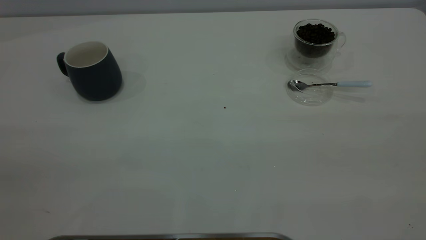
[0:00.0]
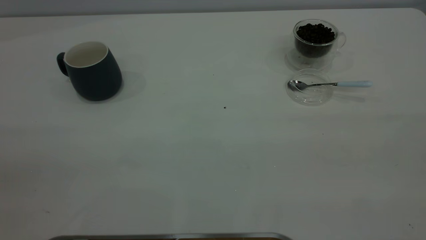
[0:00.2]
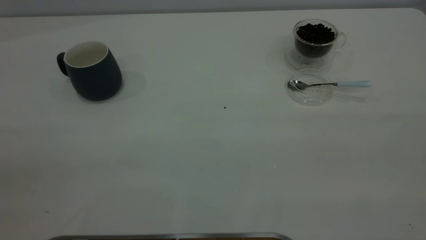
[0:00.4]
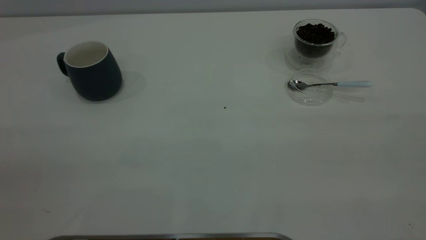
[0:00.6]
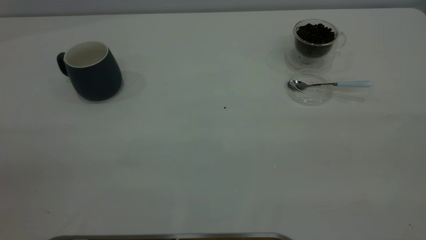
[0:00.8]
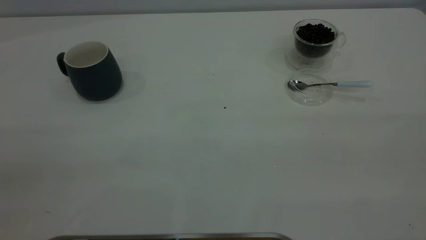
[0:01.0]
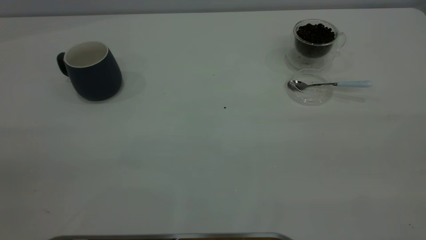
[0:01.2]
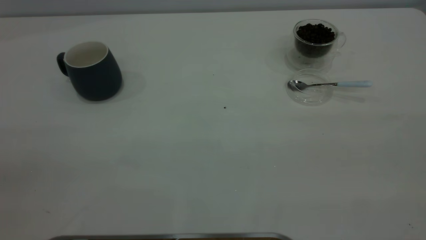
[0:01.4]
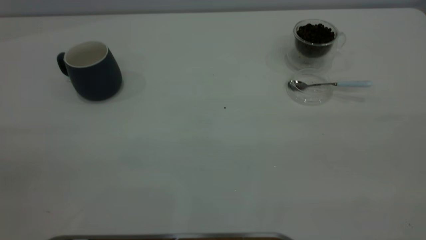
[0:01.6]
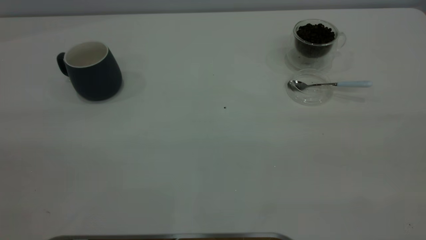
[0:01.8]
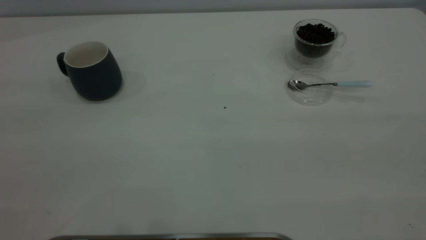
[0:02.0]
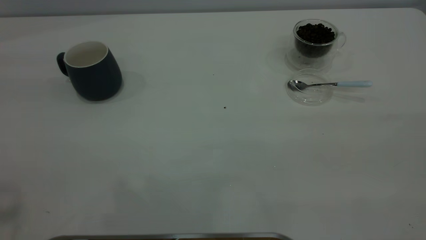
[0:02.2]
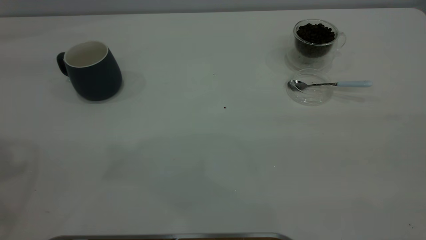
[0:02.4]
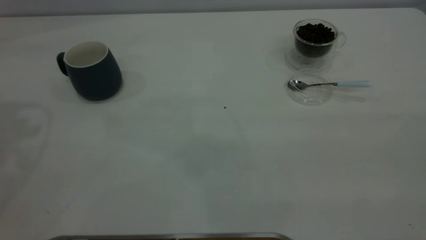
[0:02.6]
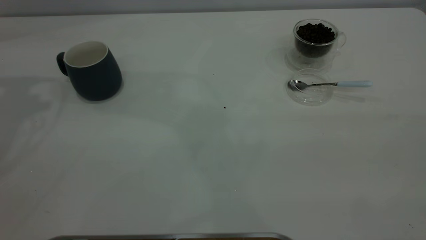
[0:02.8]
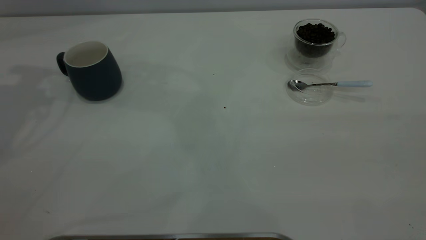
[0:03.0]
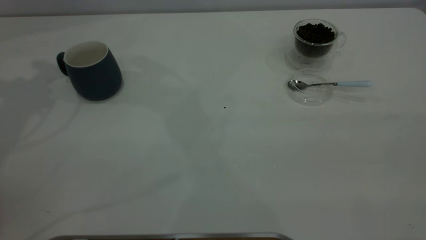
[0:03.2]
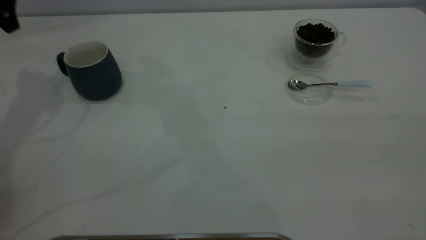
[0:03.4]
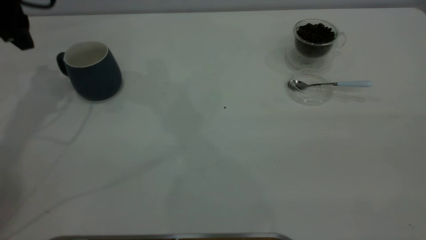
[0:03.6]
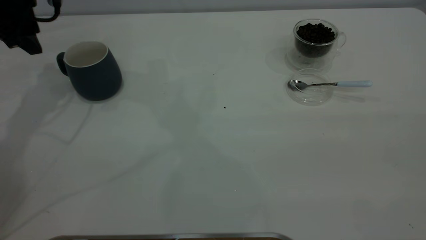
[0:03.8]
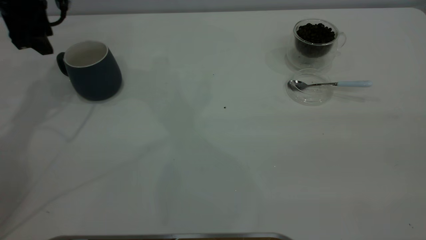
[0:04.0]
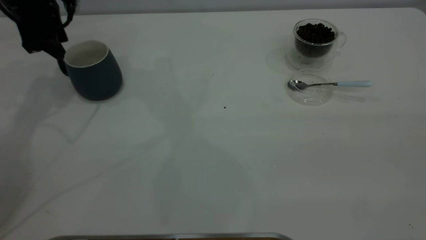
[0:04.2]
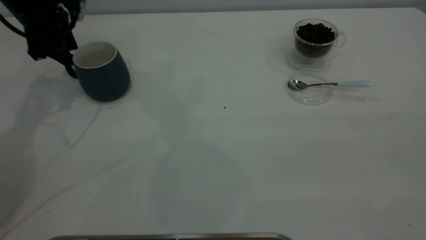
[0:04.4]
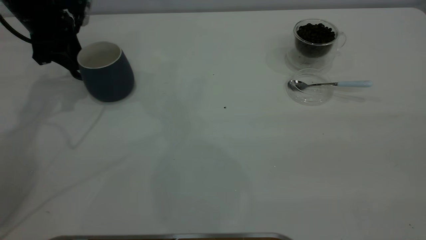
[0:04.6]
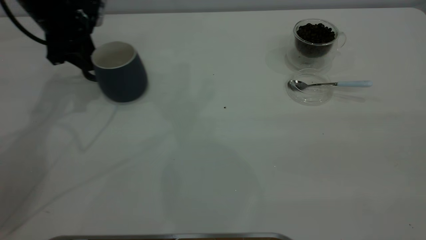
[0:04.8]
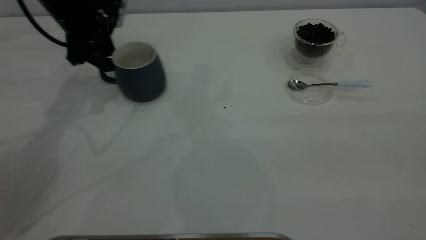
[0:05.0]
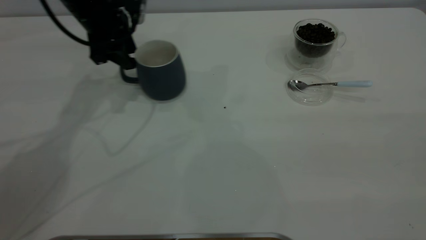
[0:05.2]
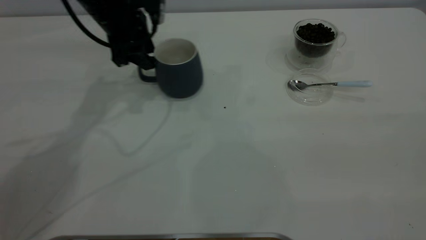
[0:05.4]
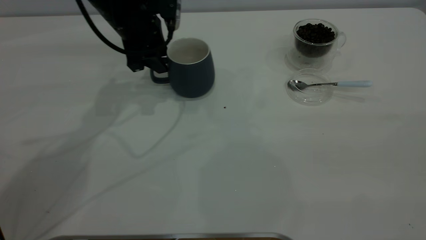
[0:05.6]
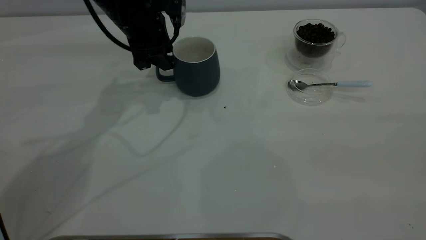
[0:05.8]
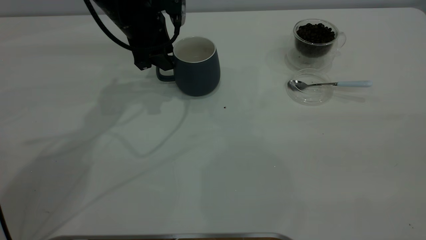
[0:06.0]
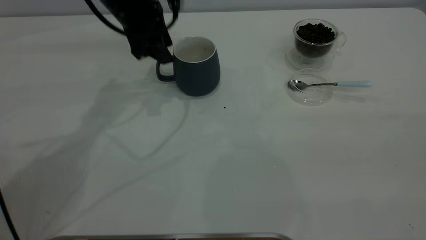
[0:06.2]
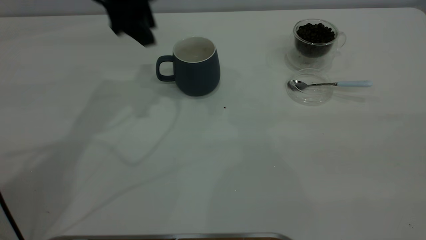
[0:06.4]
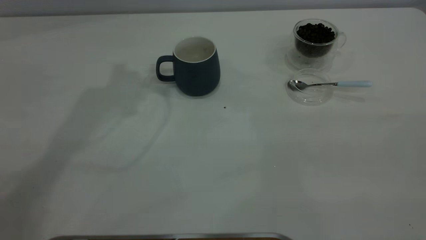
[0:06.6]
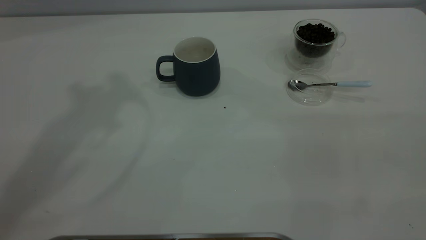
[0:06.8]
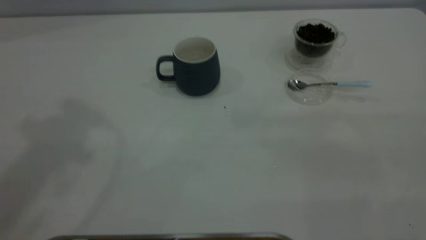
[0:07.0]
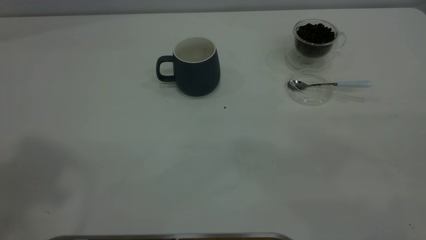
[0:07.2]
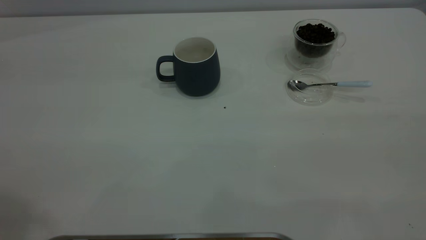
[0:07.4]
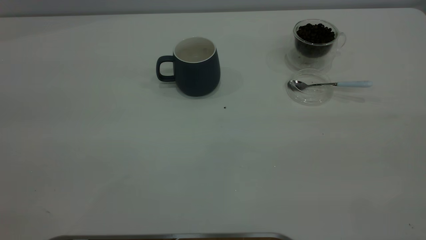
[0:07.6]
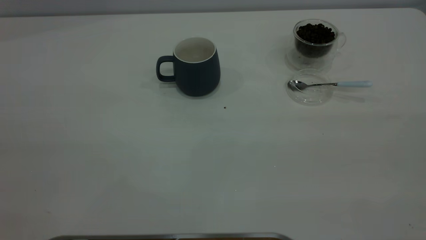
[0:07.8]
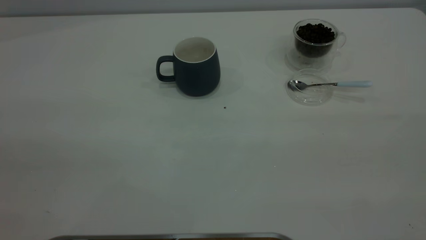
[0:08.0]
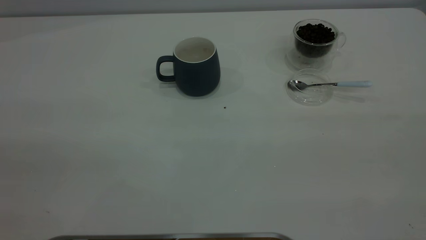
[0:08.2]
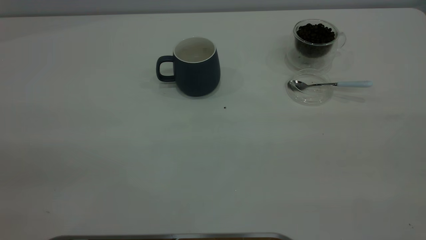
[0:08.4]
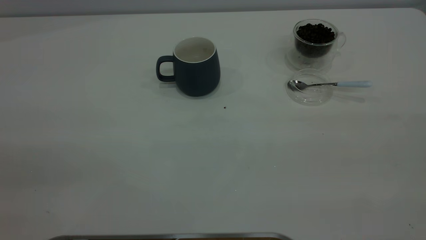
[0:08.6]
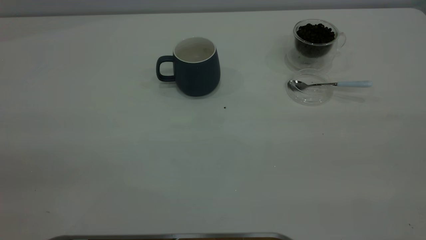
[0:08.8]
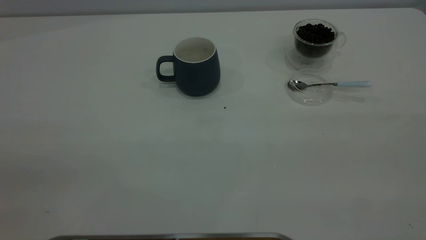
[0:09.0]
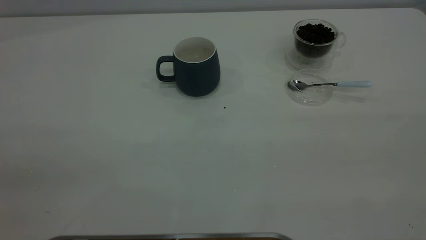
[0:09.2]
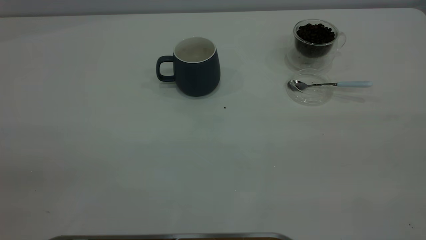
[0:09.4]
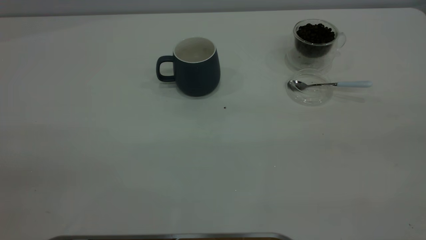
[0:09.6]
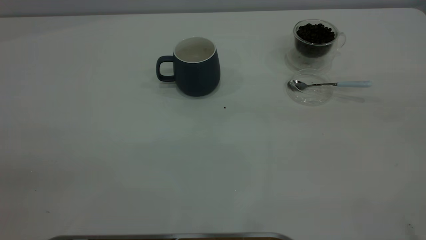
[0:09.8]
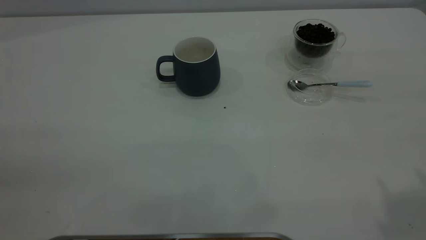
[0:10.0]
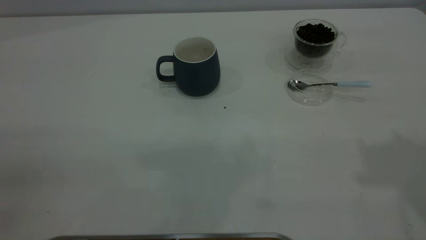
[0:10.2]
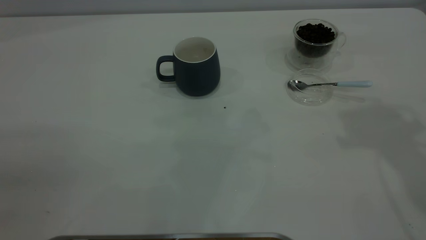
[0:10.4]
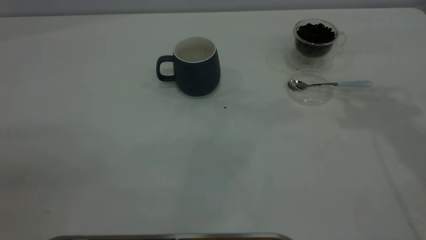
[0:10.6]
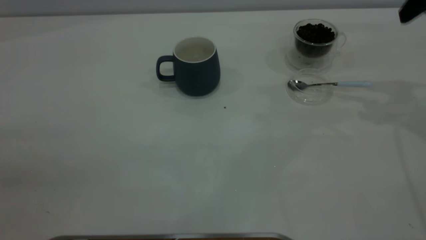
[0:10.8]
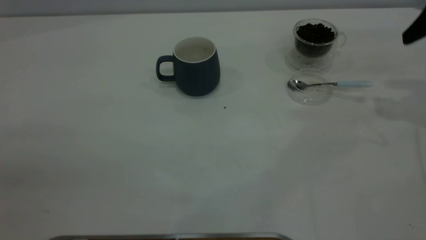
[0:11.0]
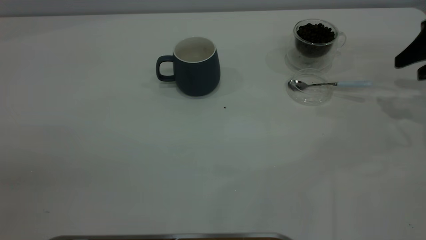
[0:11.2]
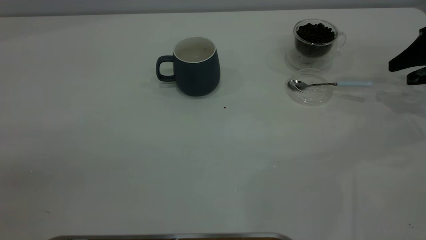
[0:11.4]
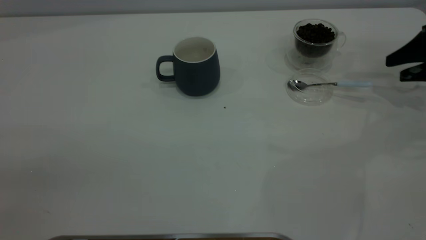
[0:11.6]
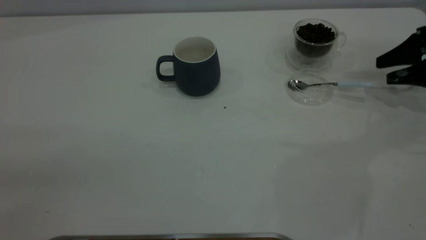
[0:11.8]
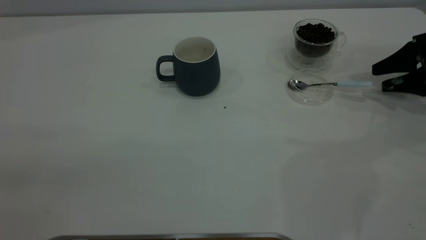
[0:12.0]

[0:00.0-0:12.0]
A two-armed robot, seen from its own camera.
Task of the whole recording: the left gripper place the grey cup in the center of the table, the right gripper take the blue spoon from the cup lid and scoop out the coffee beans from the coffee cup and put them into the grey cup, the right gripper put the spoon back into the cup lid.
Step, 0:00.0 to 0:06.2: Move the cup to the center of view.
0:00.0 to 0:01.6: Both grippers stay put.
0:03.0 to 0:04.4: The left gripper heads downward, covering roughly 15 cm, and closes up.
0:04.4 to 0:06.0: The left gripper shifts roughly 15 cm to the right.
0:06.0 to 0:07.6: The left gripper goes some 50 cm backward and upward.
0:10.4 to 0:12.0: The right gripper is displaced downward and to the right by some 35 cm.

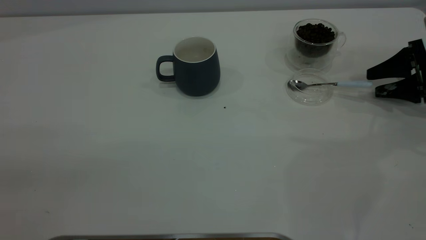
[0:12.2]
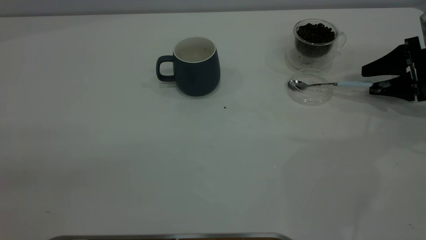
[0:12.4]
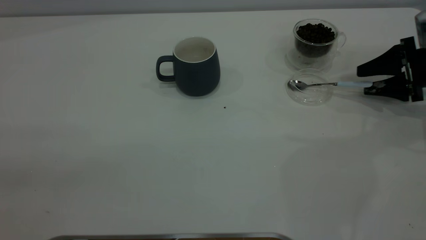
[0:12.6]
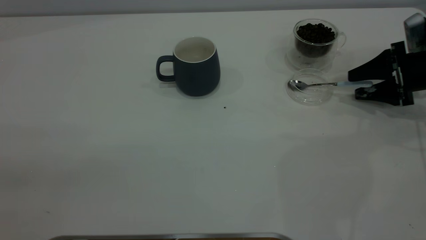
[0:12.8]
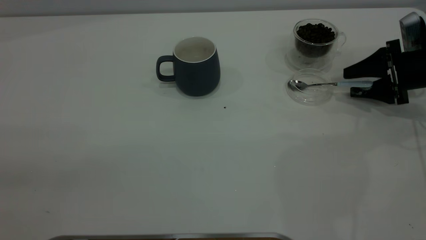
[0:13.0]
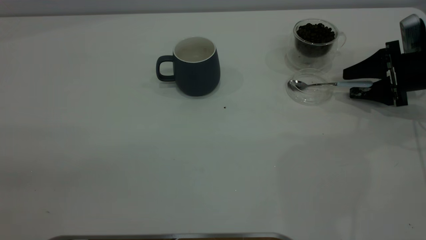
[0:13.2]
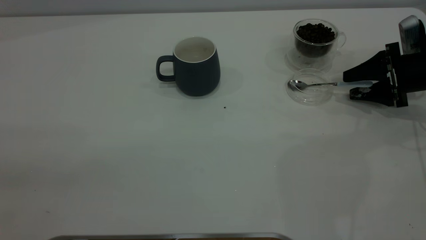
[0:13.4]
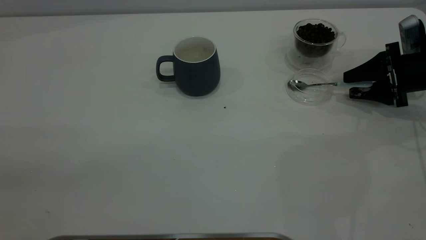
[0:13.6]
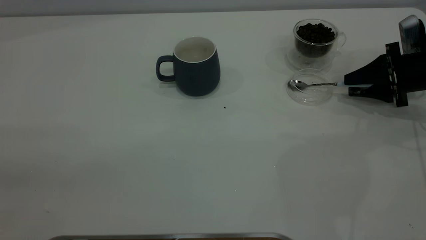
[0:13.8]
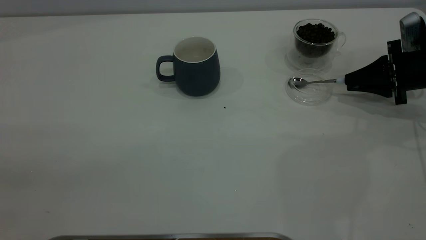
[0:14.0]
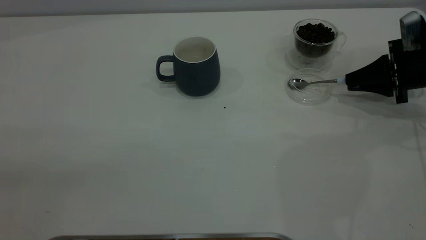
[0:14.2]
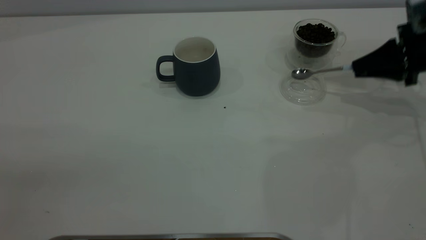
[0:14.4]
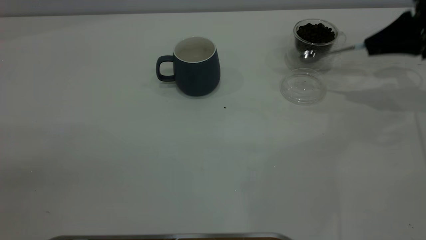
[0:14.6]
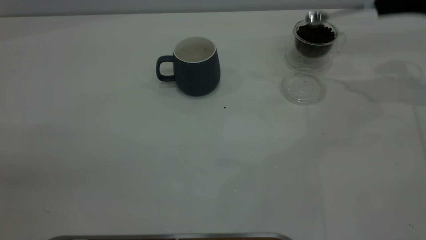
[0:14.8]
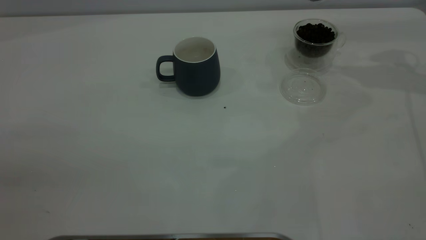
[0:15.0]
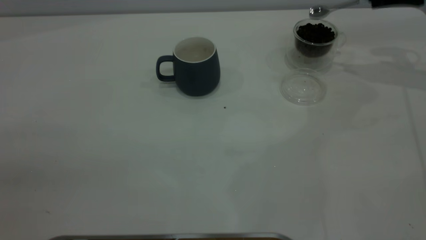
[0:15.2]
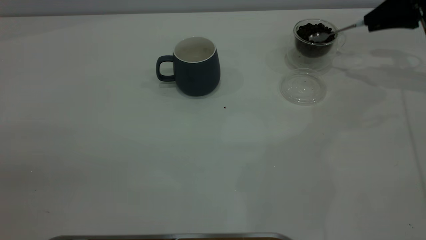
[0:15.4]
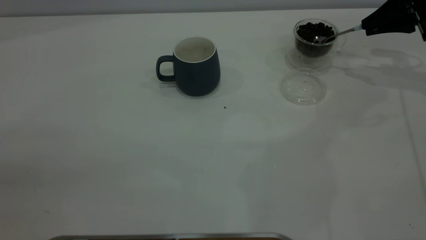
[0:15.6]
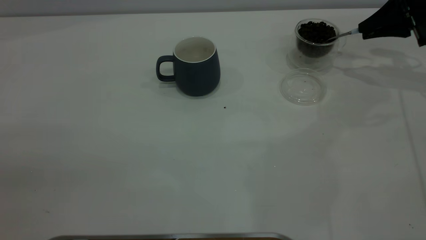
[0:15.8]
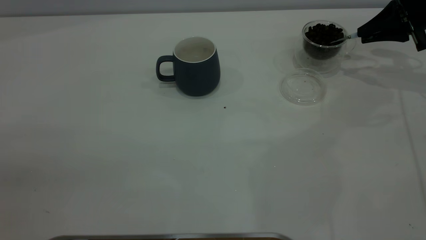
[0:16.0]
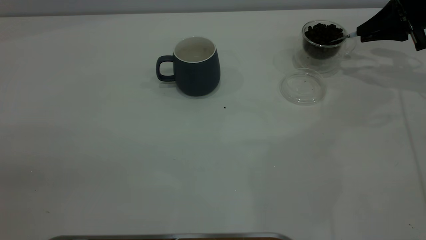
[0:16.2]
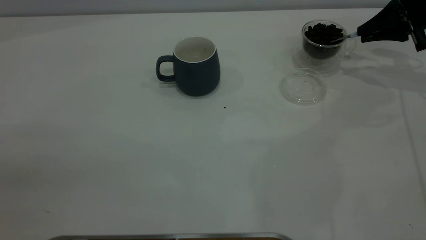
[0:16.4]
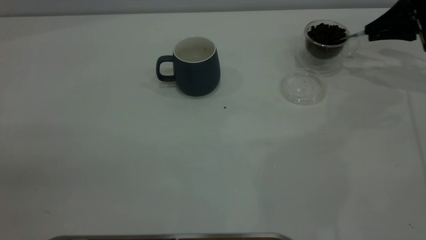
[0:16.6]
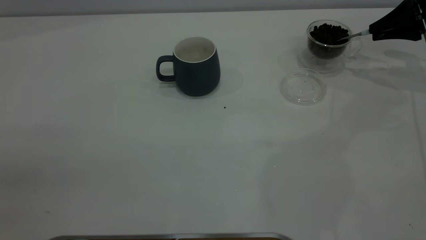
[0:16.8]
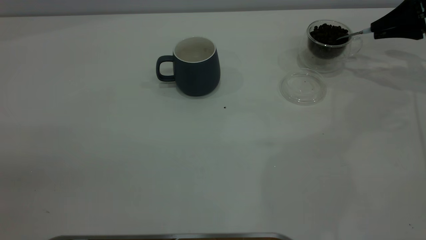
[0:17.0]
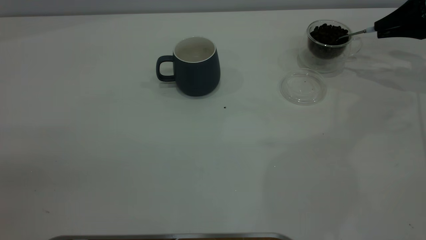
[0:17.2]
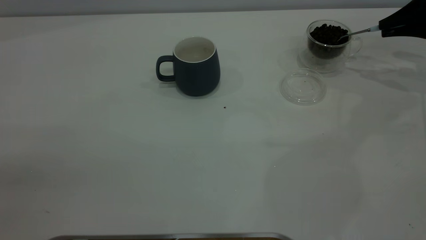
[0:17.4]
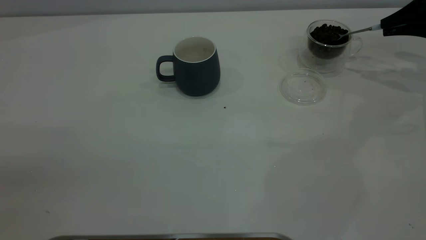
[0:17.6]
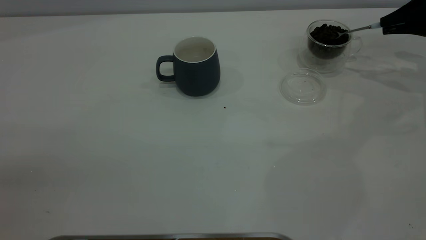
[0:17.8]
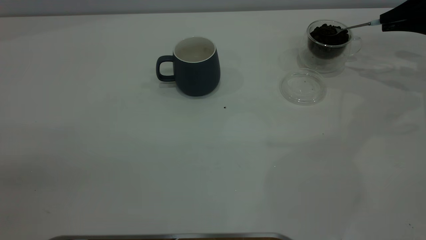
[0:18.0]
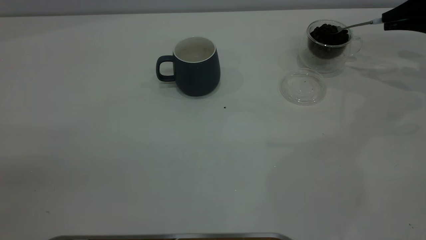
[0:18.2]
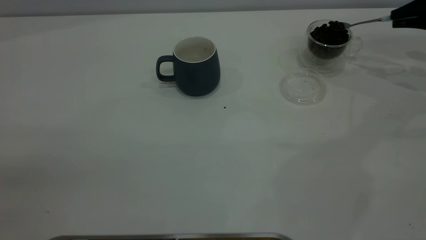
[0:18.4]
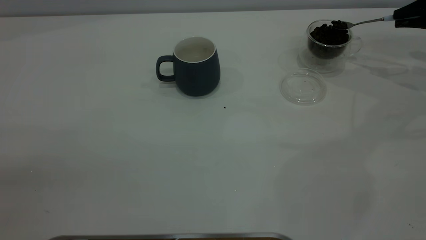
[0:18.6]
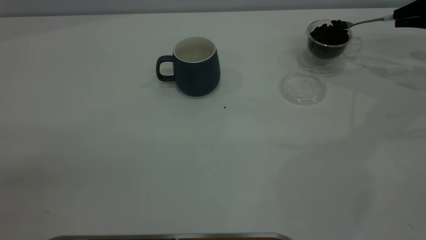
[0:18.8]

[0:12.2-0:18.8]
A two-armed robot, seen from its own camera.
Task of the whole recording: the left gripper place the grey cup in the center of the table, the right gripper take the blue spoon from the cup lid and scoop out the coffee beans from the coffee cup and put them into the grey cup, the right gripper put the spoon back into the cup lid.
Step, 0:12.2 to 0:14.4: Pick up the spoon.
0:12.2 to 0:13.8: The right gripper closes.
0:13.8 to 0:15.4: The right gripper travels upward and forward by roughly 15 cm, and closes its fingers.
0:15.4 to 0:18.8: The grippers make only small movements.
